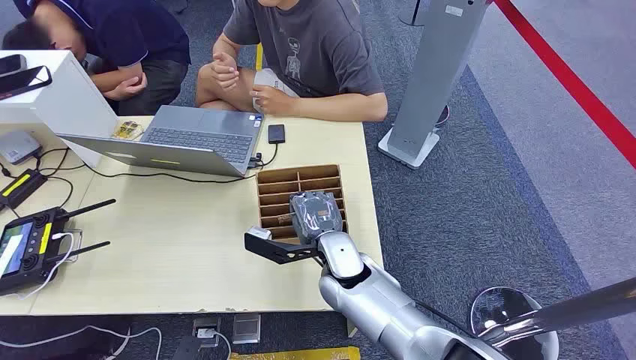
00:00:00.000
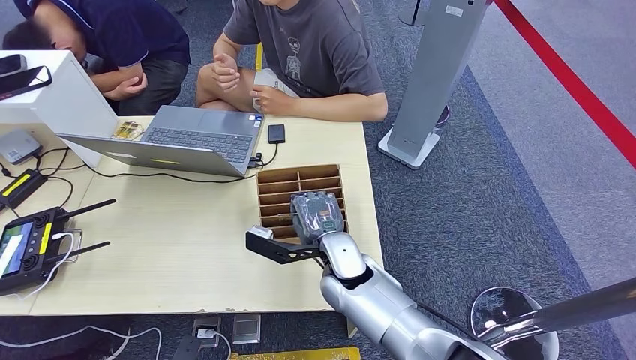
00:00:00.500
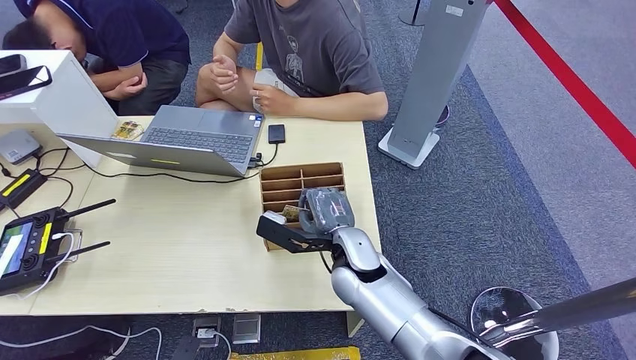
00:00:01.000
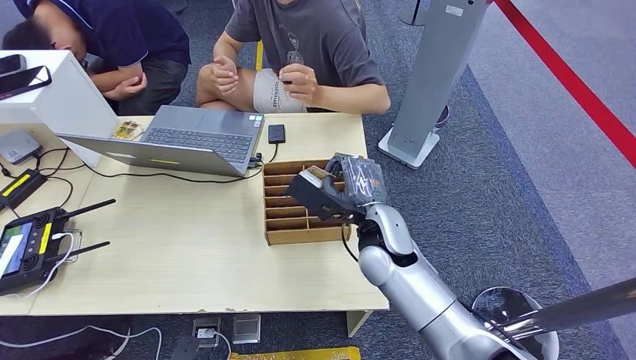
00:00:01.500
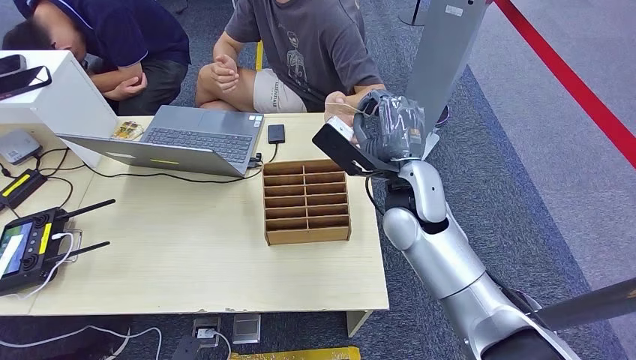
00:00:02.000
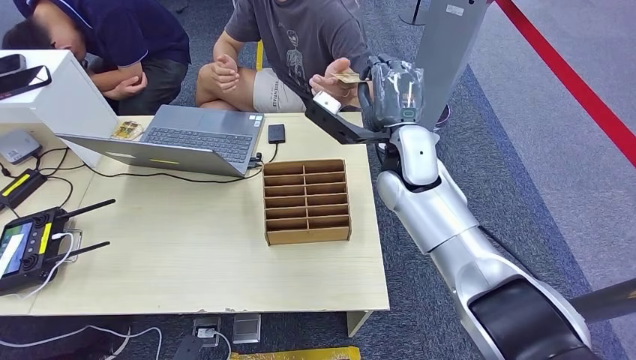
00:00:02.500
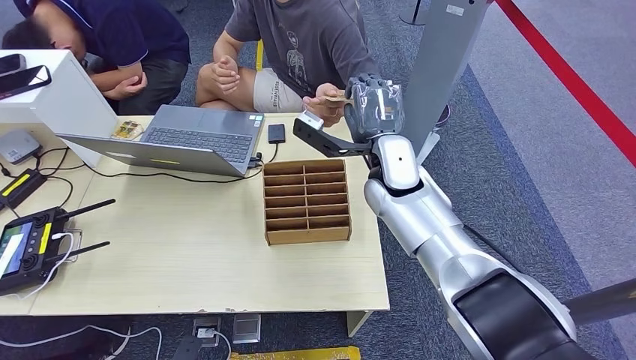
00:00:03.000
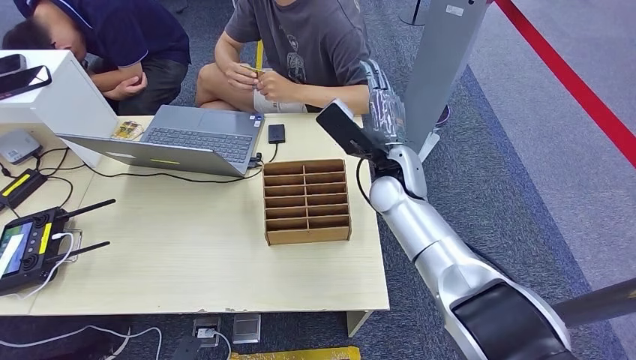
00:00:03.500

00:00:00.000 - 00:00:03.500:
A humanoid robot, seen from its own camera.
Task of the whole recording: Pick up the card and hand it over to the target person.
Step, 00:00:00.000 - 00:00:01.500: Pick up the key card from the card box.
Step, 00:00:02.000 - 00:00:03.500: Hand the key card to the target.
